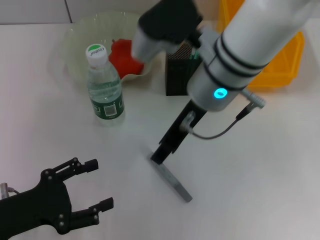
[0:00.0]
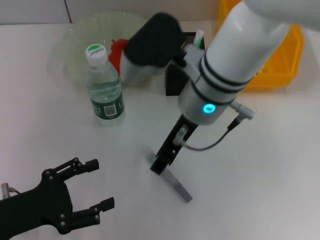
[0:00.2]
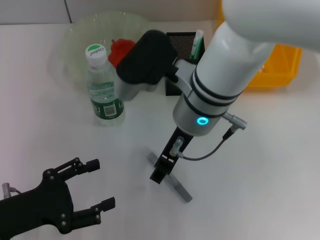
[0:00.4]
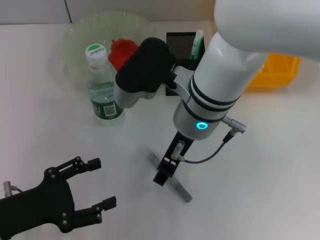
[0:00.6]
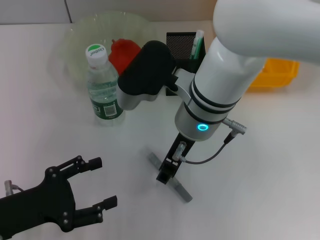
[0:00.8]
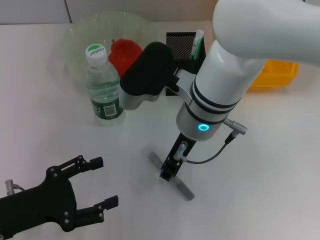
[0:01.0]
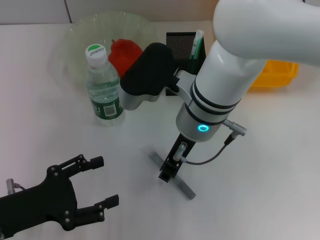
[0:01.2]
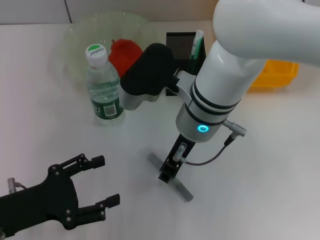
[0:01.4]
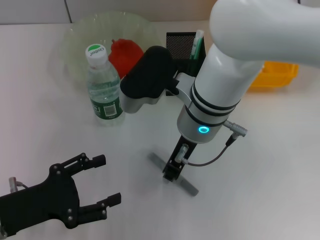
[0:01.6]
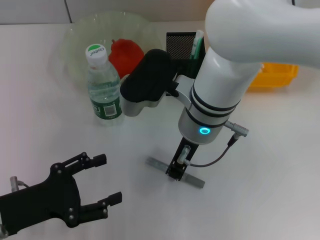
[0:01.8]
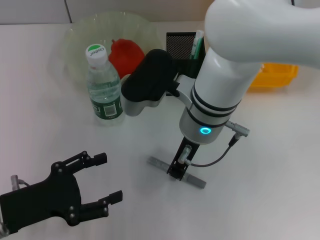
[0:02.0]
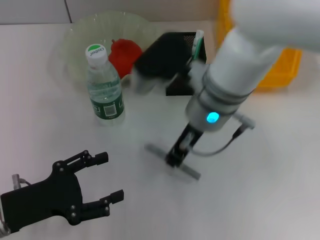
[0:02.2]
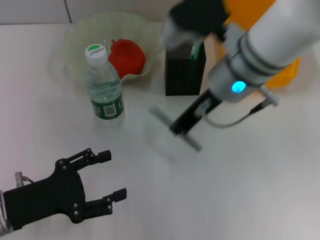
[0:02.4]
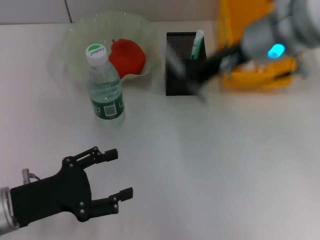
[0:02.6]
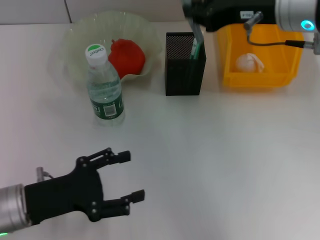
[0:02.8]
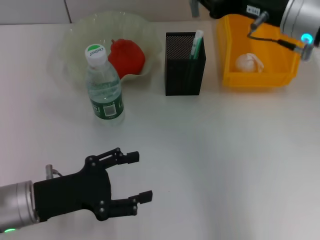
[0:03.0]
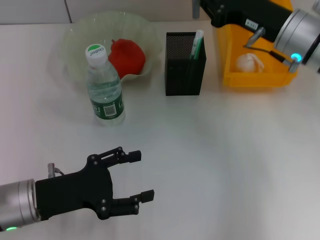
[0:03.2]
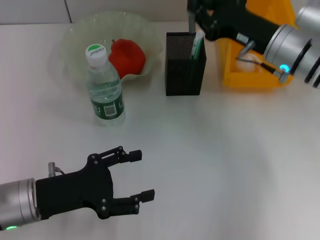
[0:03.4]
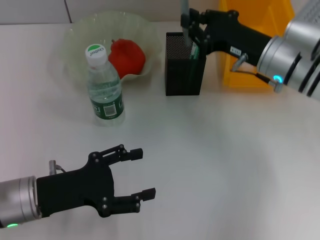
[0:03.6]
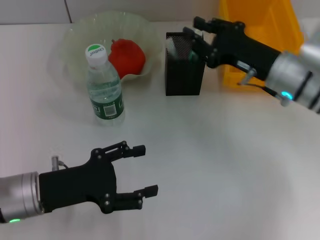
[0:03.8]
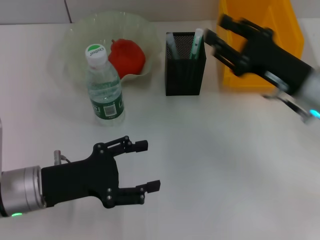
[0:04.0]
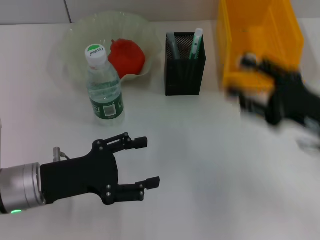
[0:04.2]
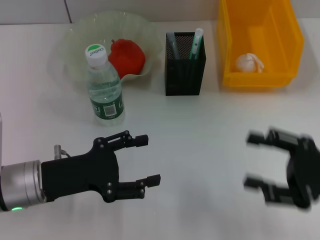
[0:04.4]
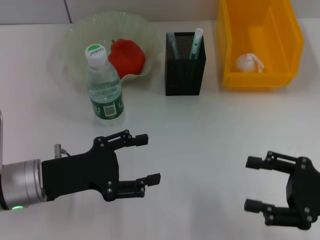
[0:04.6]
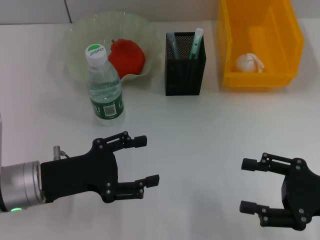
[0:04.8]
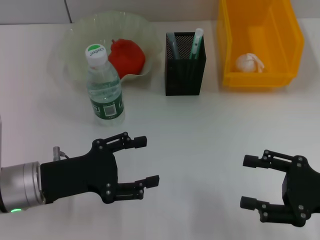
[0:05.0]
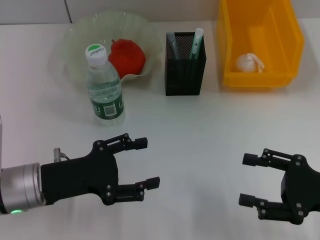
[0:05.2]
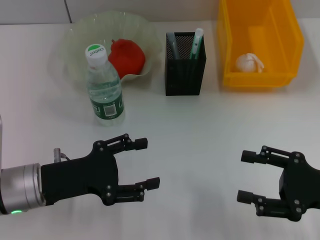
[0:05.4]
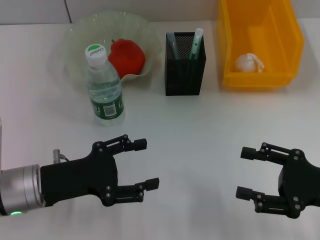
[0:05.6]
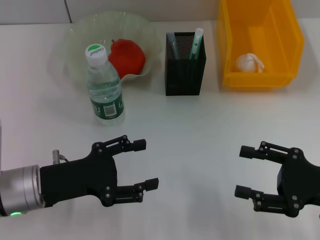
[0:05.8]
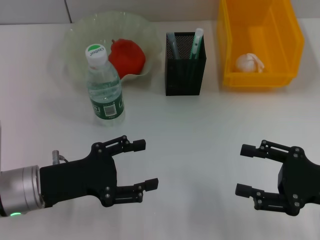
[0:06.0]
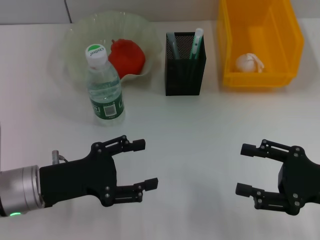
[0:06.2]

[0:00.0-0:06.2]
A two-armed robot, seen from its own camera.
Step, 0:00.0 to 0:01.4: Grab the gray glue with the right hand.
Step, 0:01.8 to 0:03.6: Place the gray glue into the pen holder with the right hand.
0:00.0 to 0:01.6: The right gripper moves downward, about 5 cm, and closes.
0:01.6 to 0:03.2: The right gripper travels to the right by roughly 15 cm.
0:03.2 to 0:04.6: The right gripper shifts roughly 20 cm backward, to the right and downward, and opens.
0:04.6 to 0:06.2: Both grippers stay about where they are.

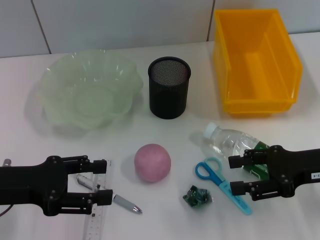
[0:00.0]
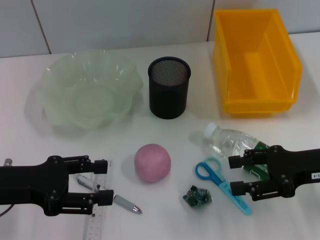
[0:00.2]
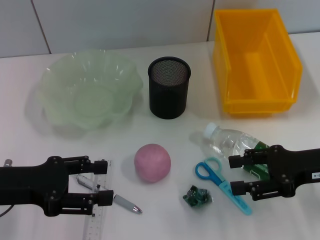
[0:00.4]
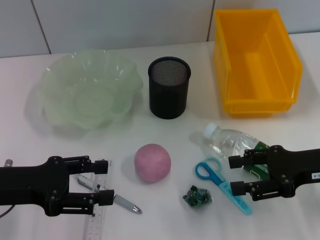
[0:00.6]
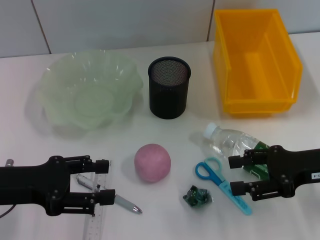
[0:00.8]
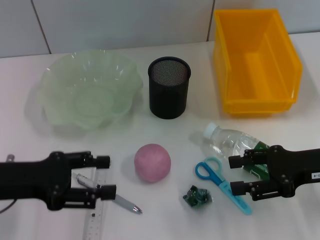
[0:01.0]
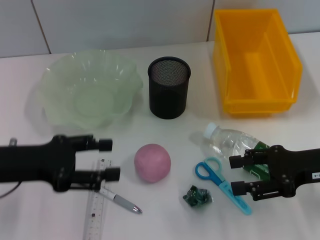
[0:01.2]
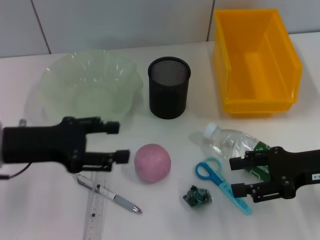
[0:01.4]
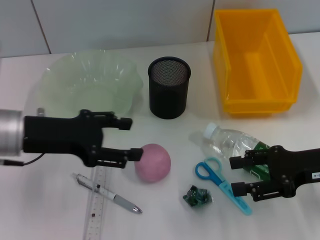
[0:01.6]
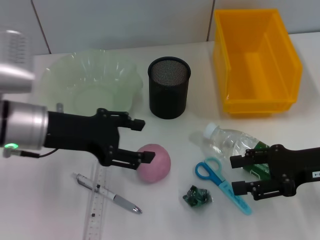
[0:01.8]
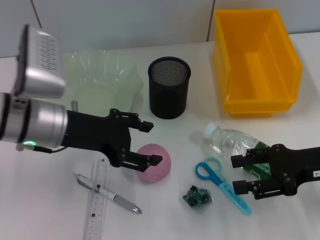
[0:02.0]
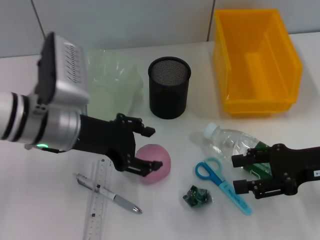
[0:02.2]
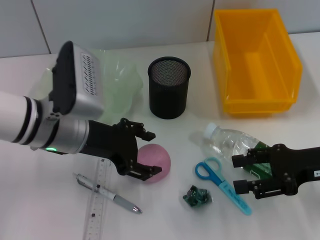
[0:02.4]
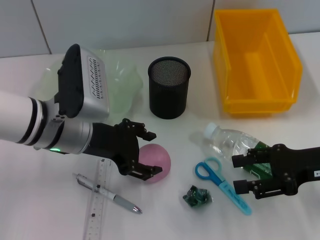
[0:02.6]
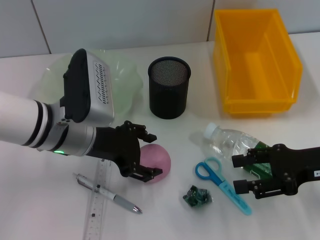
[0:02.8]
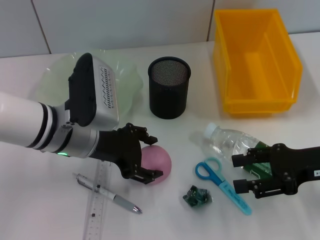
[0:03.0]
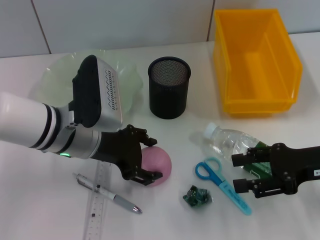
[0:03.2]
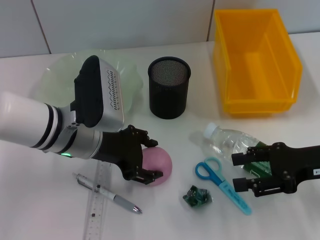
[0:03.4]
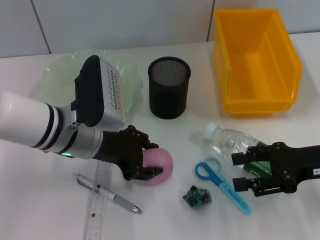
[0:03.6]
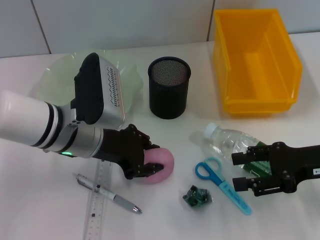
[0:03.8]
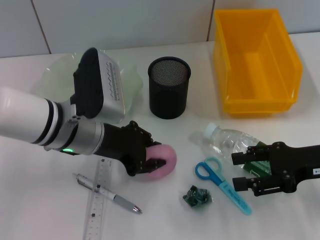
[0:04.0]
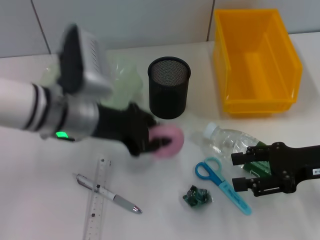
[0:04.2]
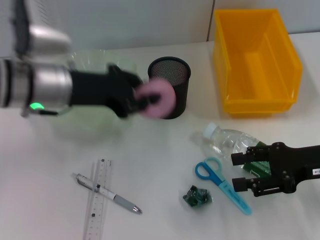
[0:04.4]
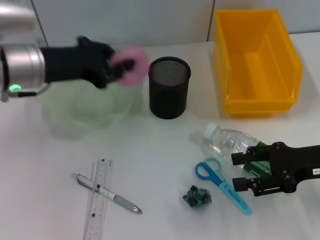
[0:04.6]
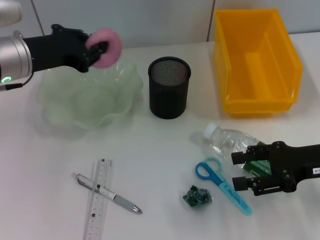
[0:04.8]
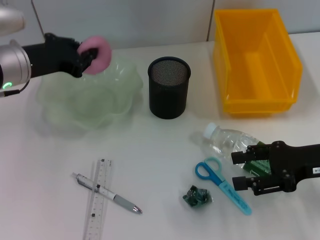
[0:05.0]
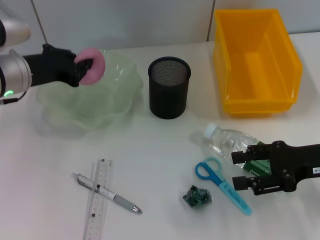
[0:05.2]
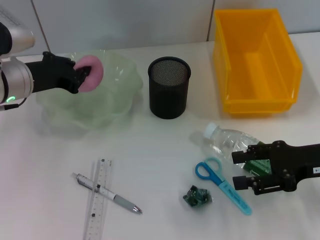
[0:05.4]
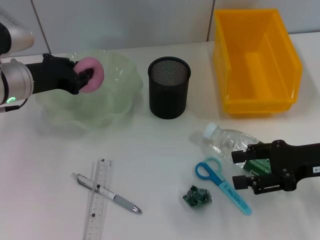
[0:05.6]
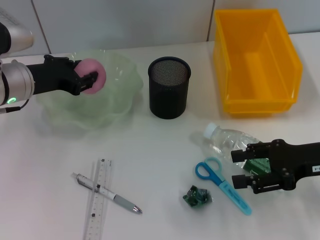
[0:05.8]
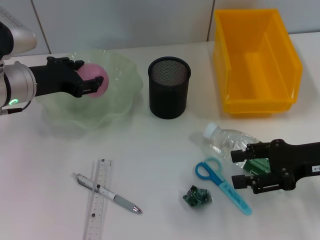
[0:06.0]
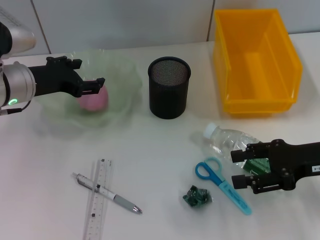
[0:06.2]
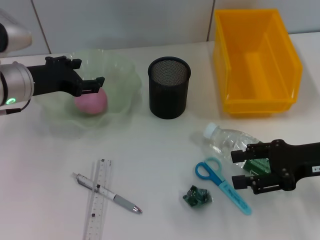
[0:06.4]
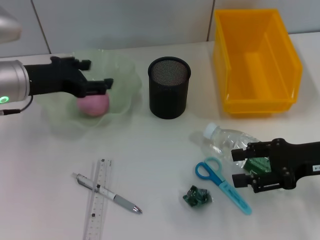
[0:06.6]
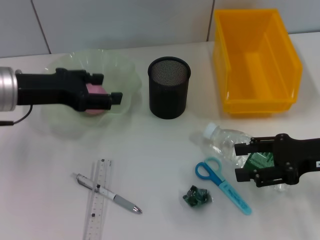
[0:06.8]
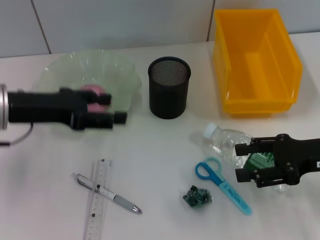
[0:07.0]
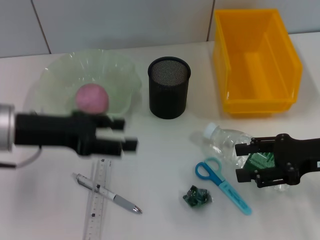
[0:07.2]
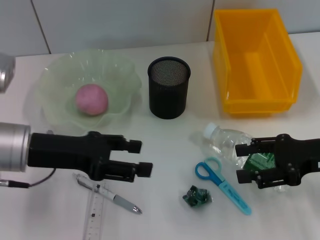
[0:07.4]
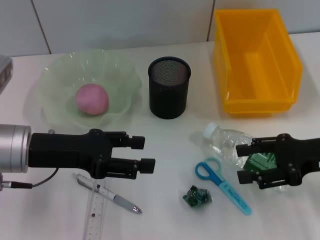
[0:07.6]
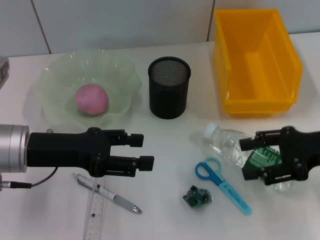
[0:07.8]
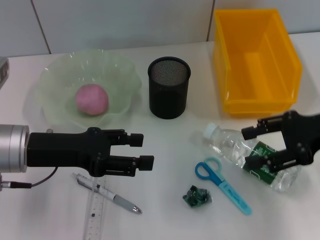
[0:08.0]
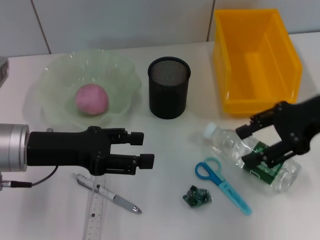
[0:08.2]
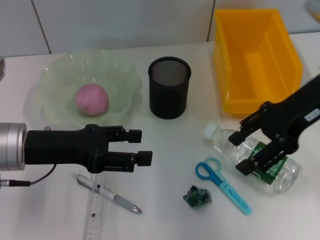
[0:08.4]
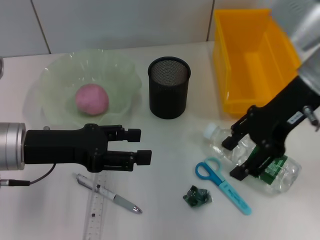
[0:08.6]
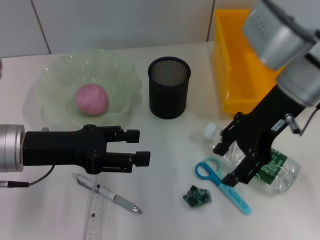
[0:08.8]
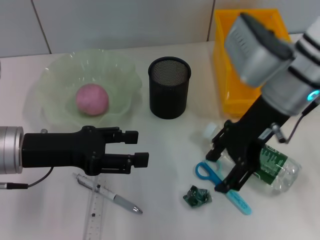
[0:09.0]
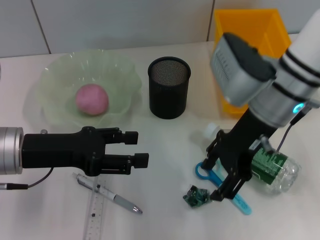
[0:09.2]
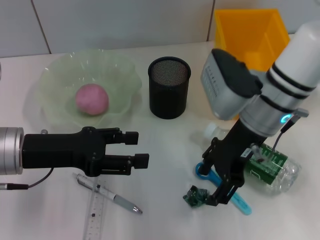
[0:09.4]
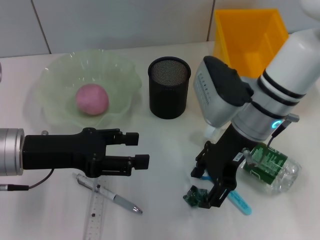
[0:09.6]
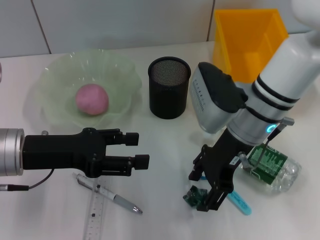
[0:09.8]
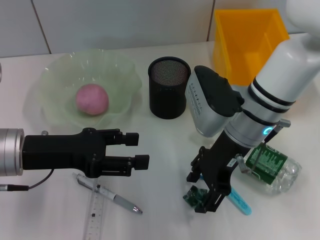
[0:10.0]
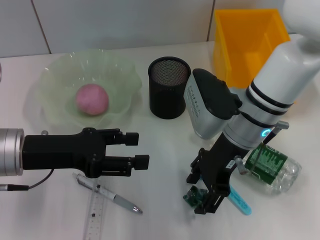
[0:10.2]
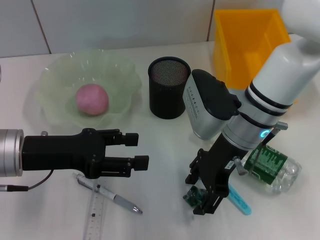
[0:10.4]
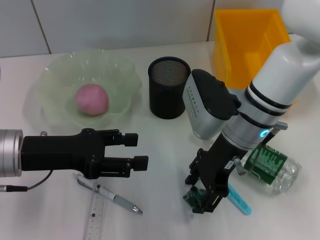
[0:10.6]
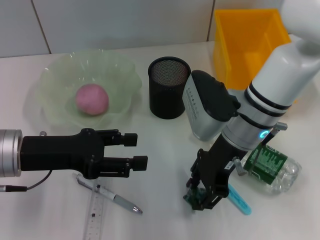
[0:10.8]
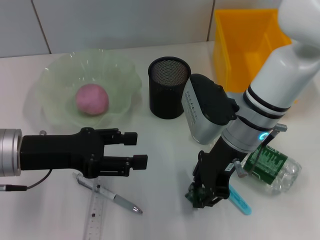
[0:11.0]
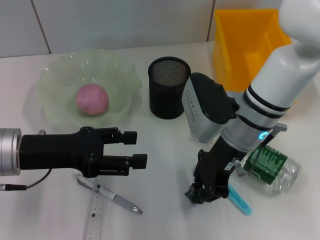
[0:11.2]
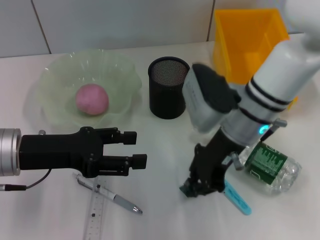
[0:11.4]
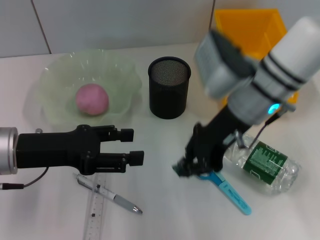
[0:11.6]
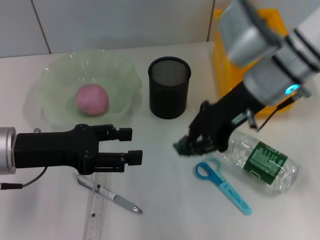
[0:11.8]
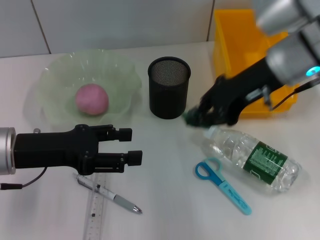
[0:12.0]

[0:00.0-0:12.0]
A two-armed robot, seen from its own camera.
Step, 0:00.0 to 0:03.4: Grab the peach with the left hand.
Step, 0:03.6 to 0:06.4: Place the peach into the fruit bowl with the left hand.
Step, 0:06.6 to 0:11.0: Grab the plastic with the right hand.
0:00.0 to 0:01.6: The left gripper heads forward and to the right, covering about 10 cm.
0:01.6 to 0:03.0: The left gripper shifts approximately 10 cm to the right.
0:03.0 to 0:04.4: The left gripper shifts some 5 cm upward, and closes its fingers.
0:04.4 to 0:06.0: The left gripper is displaced to the left by roughly 5 cm.
0:06.0 to 0:07.6: The left gripper travels backward by approximately 10 cm, and opens.
0:07.6 to 0:09.0: The right gripper shifts some 20 cm to the left, upward and forward.
0:09.0 to 0:10.4: The right gripper moves downward, roughly 5 cm.
0:10.4 to 0:12.0: The right gripper moves upward and to the right, roughly 10 cm, and closes its fingers.

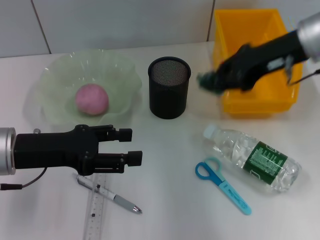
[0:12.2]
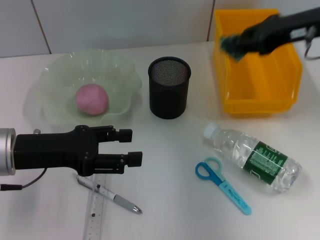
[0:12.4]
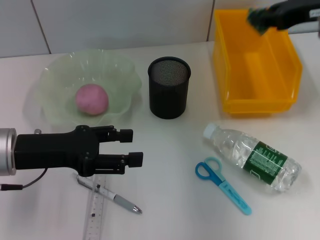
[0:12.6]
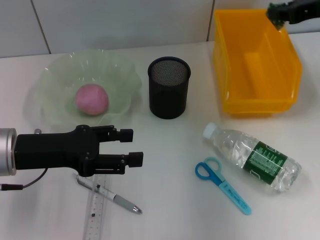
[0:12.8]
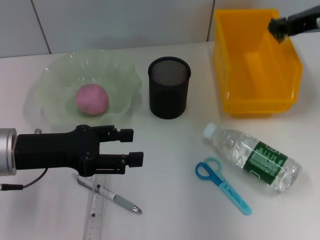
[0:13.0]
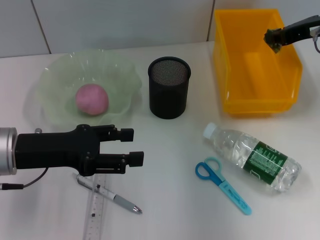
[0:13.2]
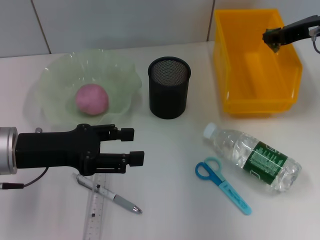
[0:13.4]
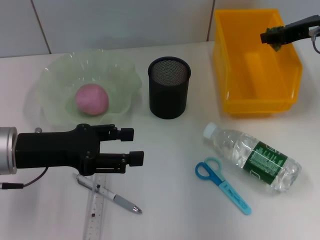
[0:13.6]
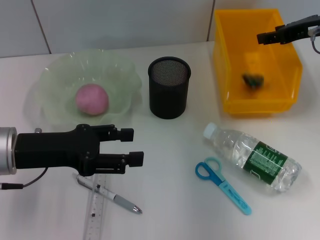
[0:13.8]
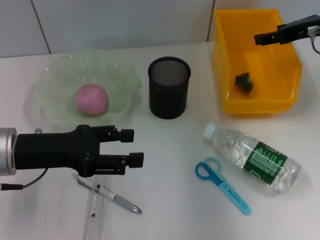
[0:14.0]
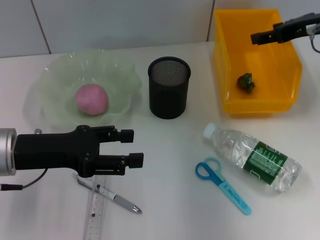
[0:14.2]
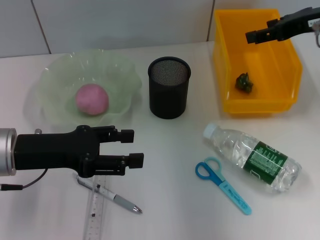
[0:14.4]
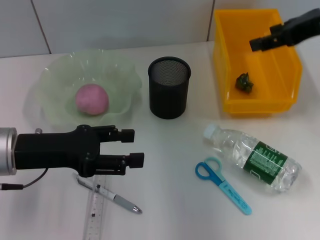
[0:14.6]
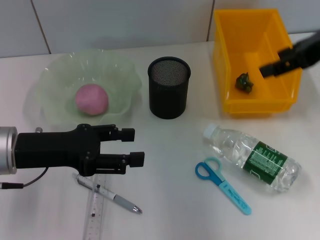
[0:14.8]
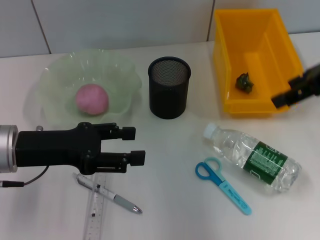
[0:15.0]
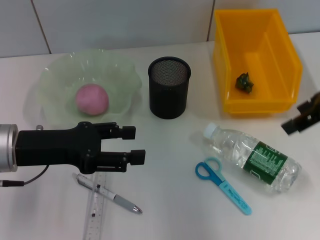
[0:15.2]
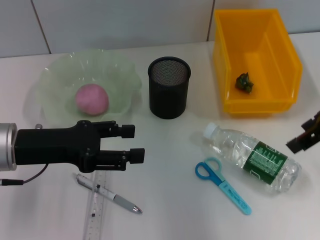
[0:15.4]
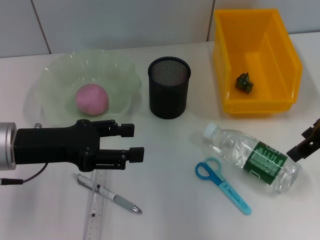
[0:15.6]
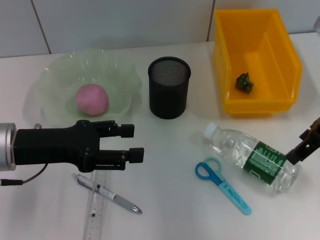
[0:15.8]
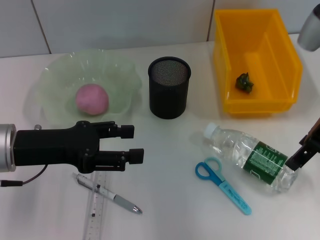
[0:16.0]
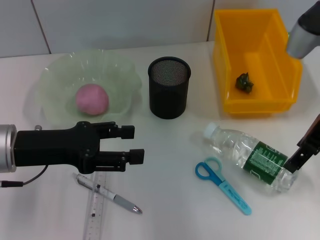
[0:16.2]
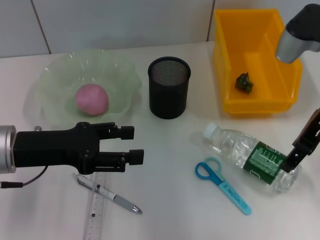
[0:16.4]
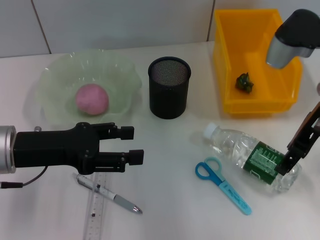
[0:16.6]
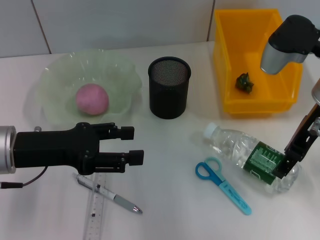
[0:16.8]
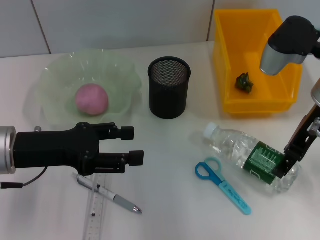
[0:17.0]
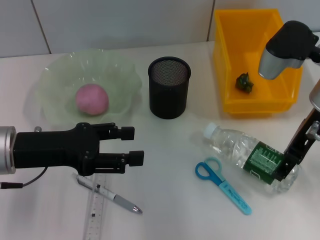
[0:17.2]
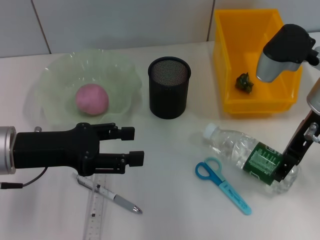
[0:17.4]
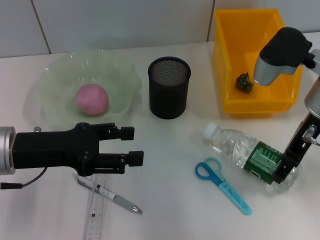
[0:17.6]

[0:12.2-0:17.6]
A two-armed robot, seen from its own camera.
Step, 0:12.2 to 0:13.8: Place the plastic into the trash can with the right hand.
0:12.2 to 0:13.6: The right gripper heads to the right, covering some 5 cm.
0:13.6 to 0:15.0: The right gripper goes some 10 cm backward and upward, and opens its fingers.
0:15.0 to 0:16.2: The right gripper is displaced downward by about 5 cm.
0:16.2 to 0:17.6: There are only small adjustments of the grippers.
